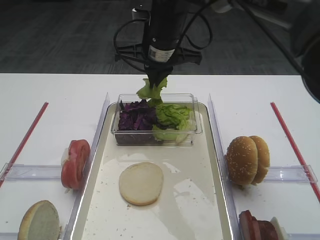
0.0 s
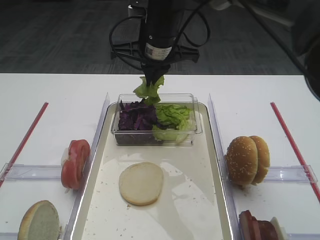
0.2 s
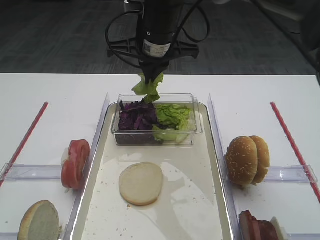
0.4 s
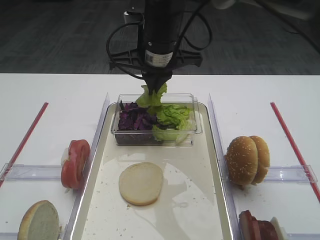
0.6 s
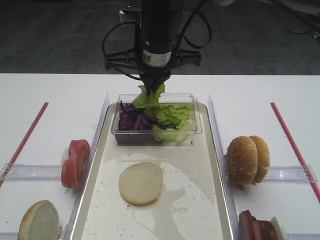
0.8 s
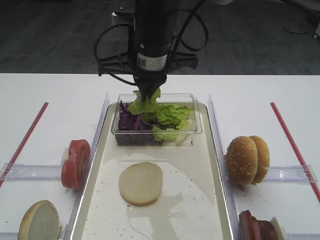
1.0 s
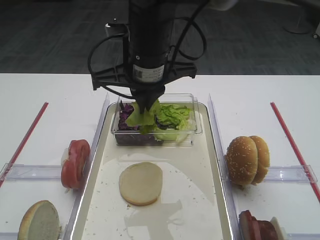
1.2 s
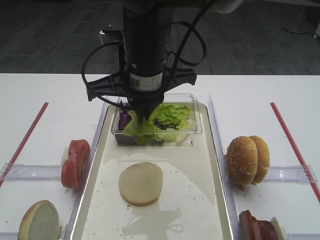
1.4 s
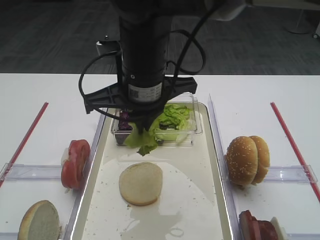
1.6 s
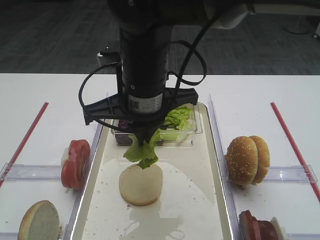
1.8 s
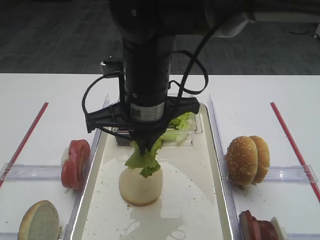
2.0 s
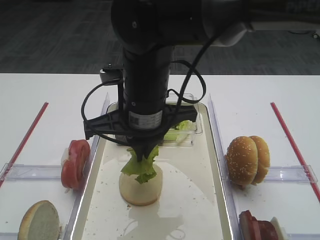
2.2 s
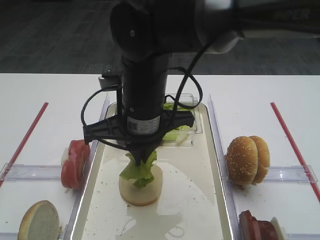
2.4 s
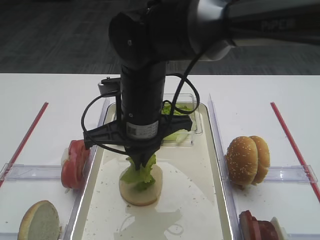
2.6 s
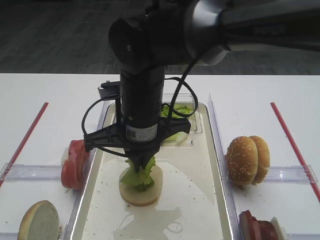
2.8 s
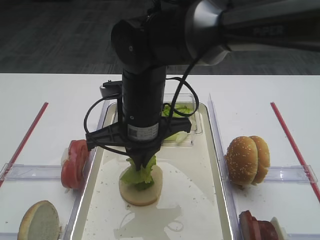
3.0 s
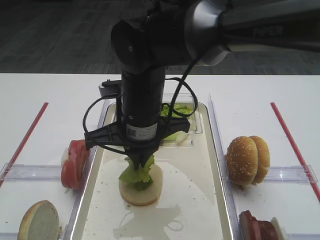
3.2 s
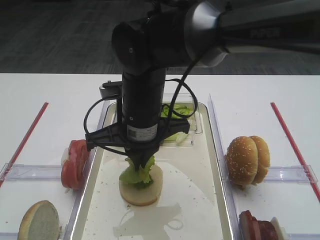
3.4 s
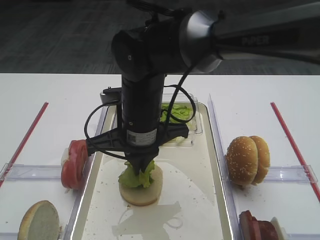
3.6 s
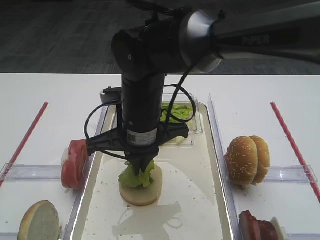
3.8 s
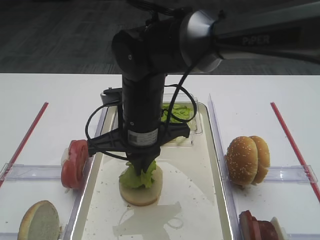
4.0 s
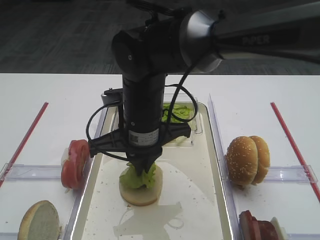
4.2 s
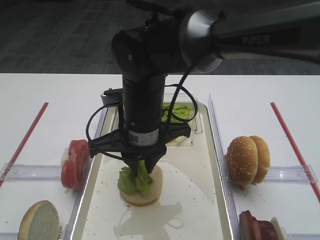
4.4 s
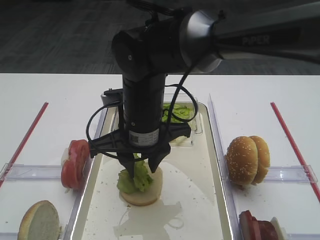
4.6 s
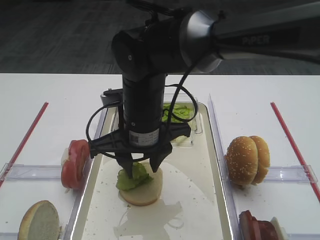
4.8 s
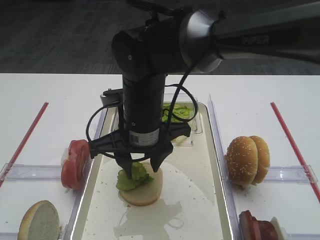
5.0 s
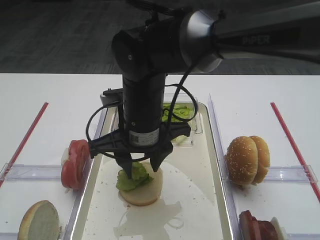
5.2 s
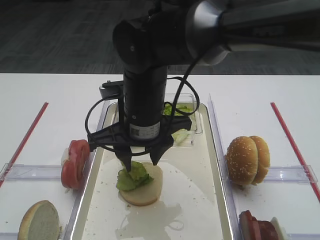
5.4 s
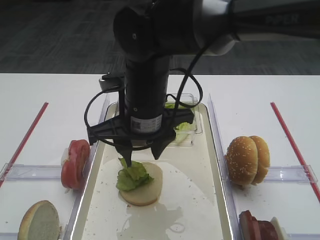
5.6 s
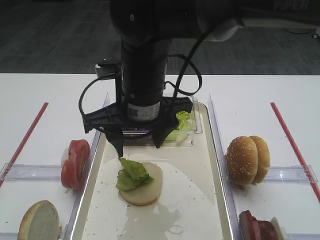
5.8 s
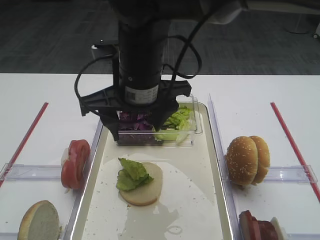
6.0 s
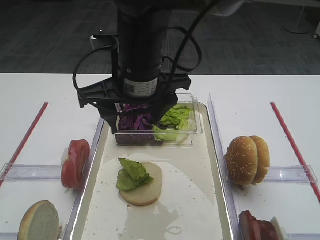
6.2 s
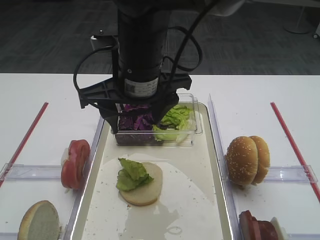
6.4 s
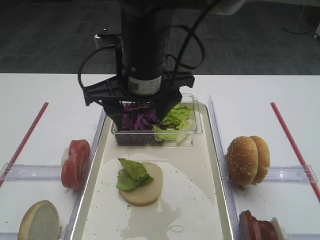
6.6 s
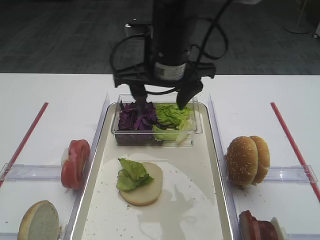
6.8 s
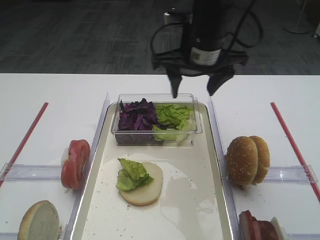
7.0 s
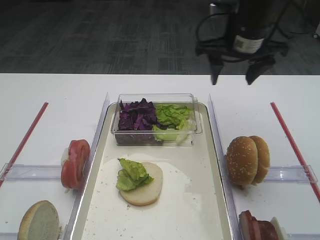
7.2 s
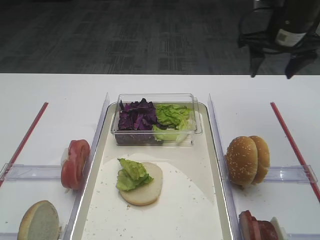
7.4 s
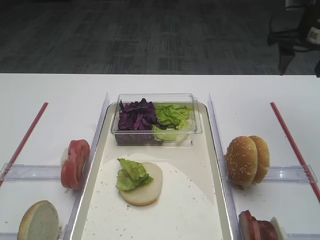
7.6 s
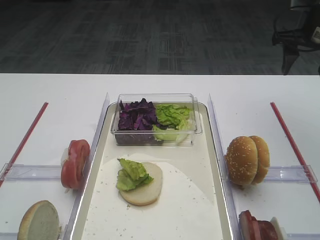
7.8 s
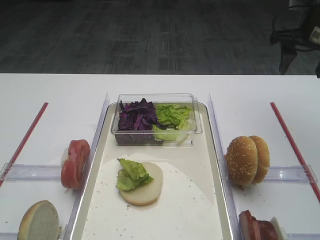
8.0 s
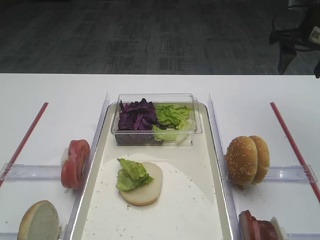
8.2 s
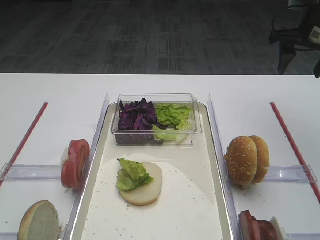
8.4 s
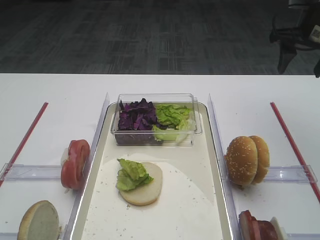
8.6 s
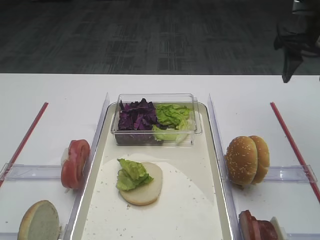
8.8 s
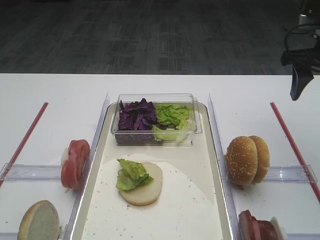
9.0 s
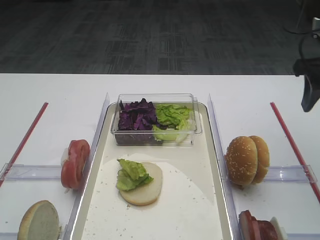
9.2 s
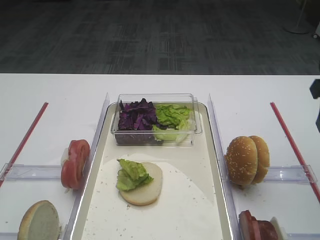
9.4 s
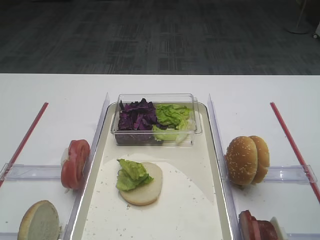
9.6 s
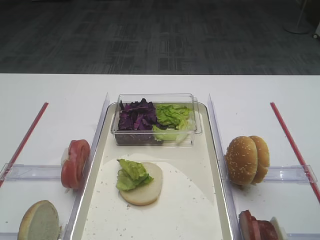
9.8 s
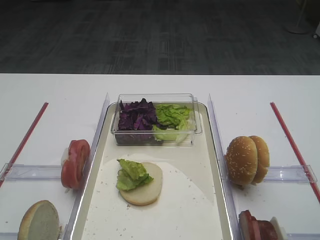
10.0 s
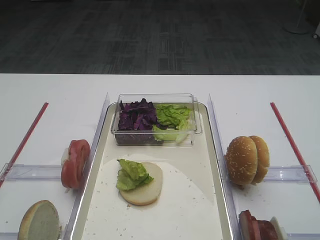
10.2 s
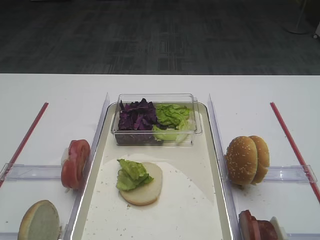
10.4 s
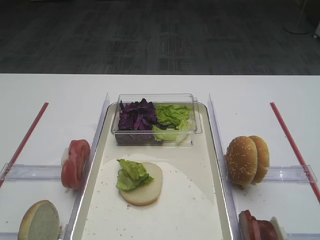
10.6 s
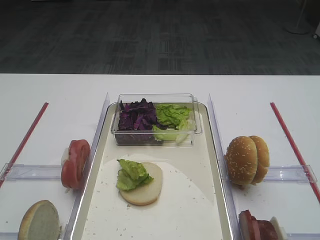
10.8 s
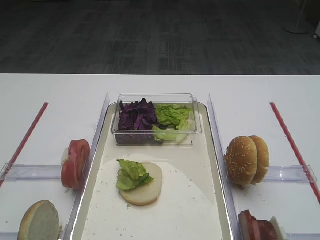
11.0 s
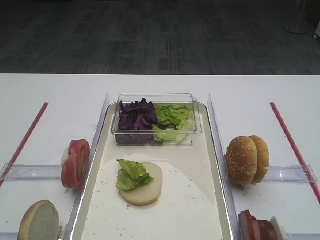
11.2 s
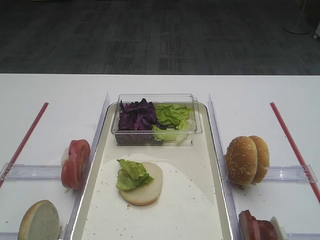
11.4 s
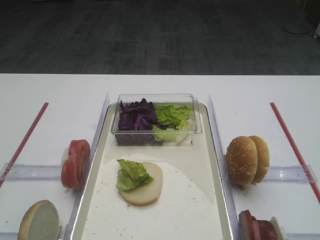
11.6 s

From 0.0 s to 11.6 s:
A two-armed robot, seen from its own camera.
Step, from 0.0 s to 4.6 s: Place the lettuce leaf on the bread slice with the right gripper.
From 0.0 s to 1.4 s: The right gripper is displaced backward by approximately 10 cm.
From 1.4 s to 2.8 s: The right gripper travels downward by approximately 5 cm.
From 2.8 s to 4.4 s: The grippers make only small movements.
From 4.4 s to 5.8 s: The right gripper opens up.
From 5.8 s to 7.2 s: The right gripper goes approximately 20 cm to the right and forward.
From 7.2 s to 8.8 s: The right gripper shifts about 15 cm to the right.
From 8.8 s to 10.2 s: The right gripper moves backward, some 30 cm.

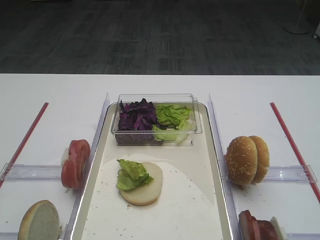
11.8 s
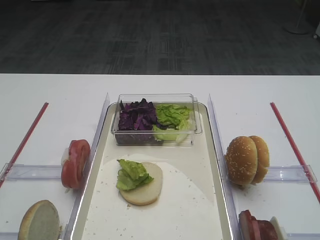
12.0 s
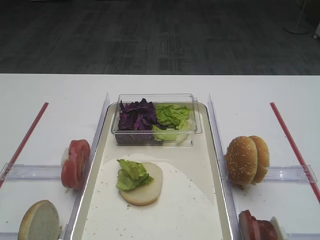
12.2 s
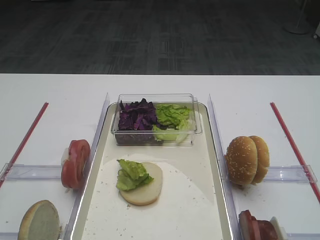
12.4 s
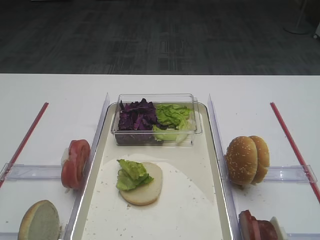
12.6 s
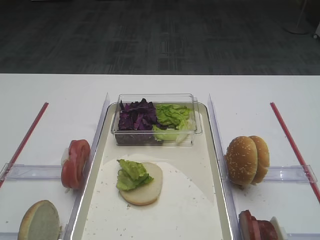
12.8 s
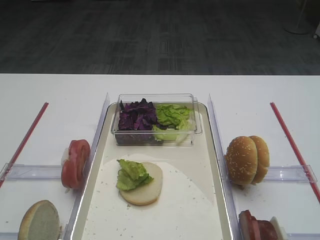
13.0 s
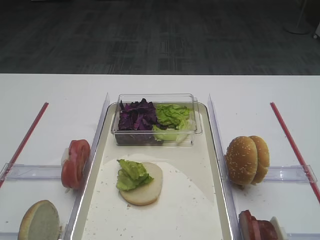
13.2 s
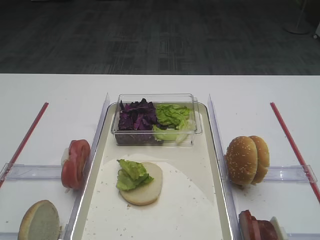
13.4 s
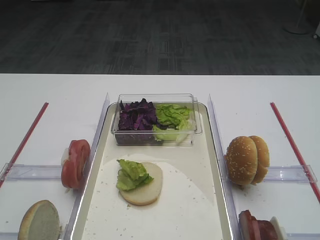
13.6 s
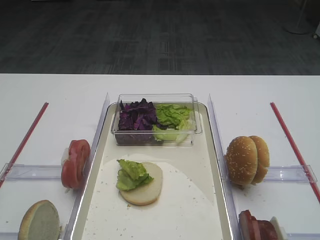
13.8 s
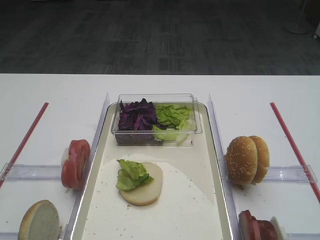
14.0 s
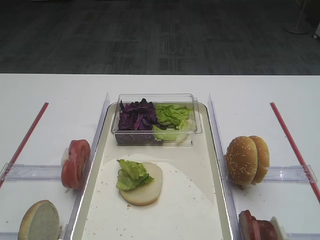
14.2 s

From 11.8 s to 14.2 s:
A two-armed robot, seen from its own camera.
From 11.8 s to 14.2 s: The two grippers keep their place.
